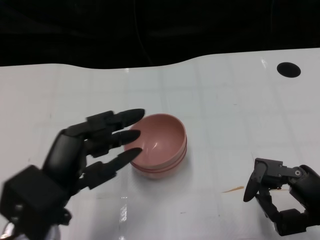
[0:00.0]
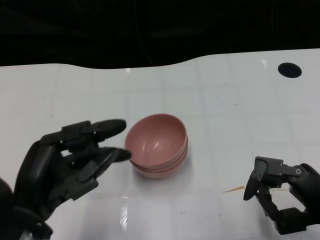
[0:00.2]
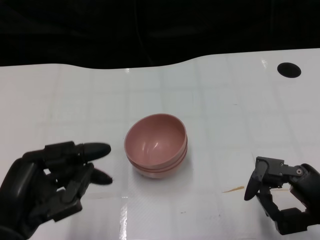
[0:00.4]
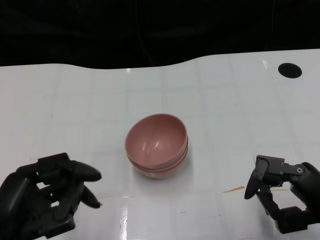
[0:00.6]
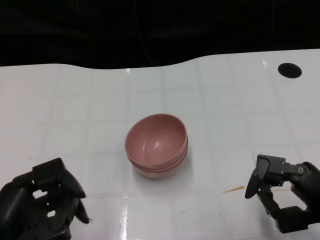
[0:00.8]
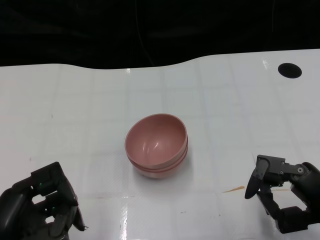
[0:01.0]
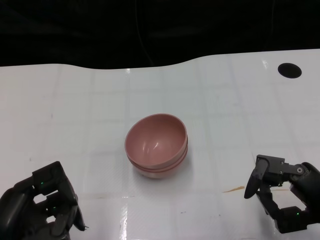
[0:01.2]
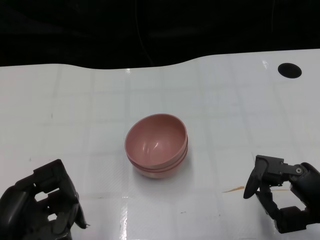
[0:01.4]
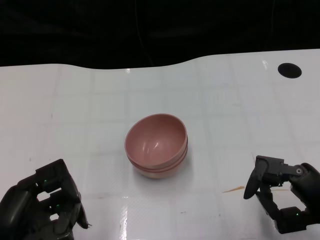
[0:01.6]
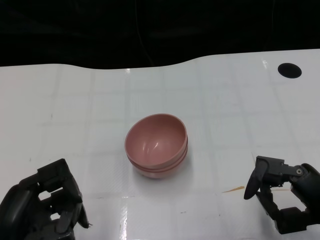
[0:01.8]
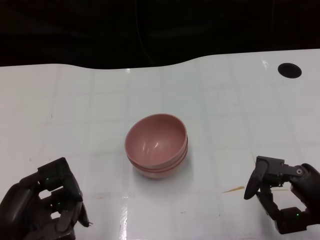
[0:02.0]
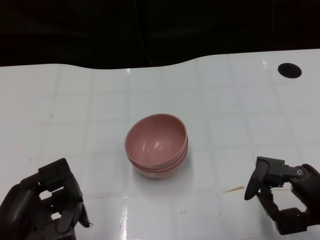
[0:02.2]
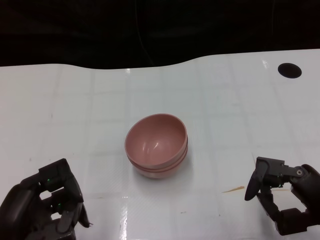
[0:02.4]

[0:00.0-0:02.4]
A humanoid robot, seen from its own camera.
Task of the whole recording: Pick up the bowl on one side of the table and place it on top of the middle bowl, then pick up the bowl on the other side of the table and place it on top of the middle bowls.
0:00.0 to 0:01.2: The left hand goes approximately 10 cm to the left and backward.
0:01.2 to 0:02.4: The two hands keep their place.

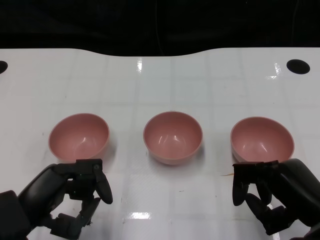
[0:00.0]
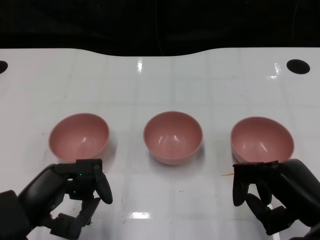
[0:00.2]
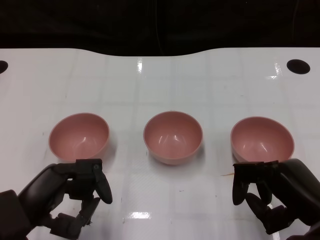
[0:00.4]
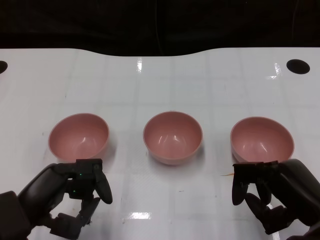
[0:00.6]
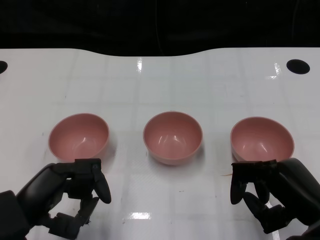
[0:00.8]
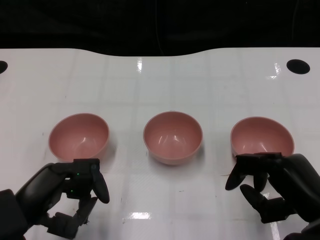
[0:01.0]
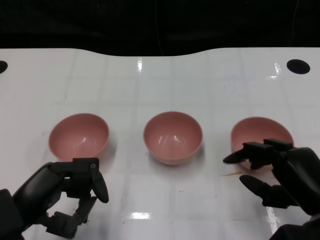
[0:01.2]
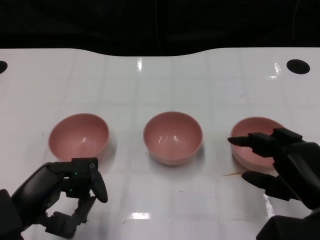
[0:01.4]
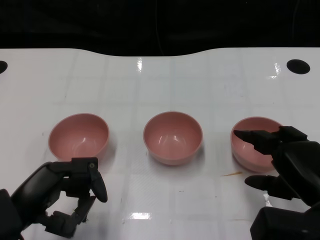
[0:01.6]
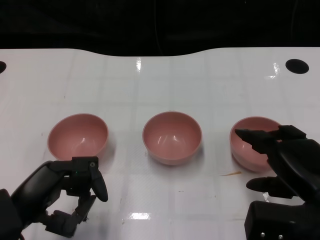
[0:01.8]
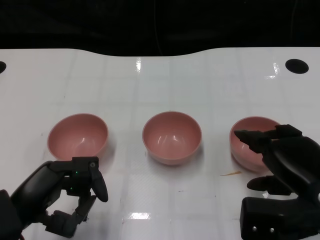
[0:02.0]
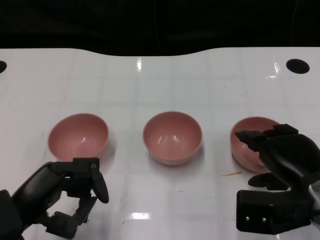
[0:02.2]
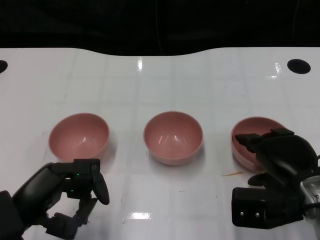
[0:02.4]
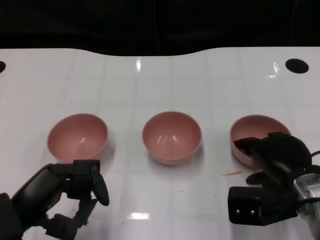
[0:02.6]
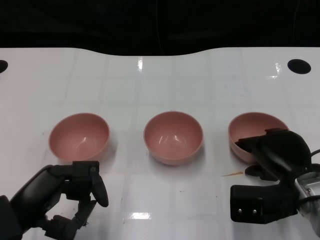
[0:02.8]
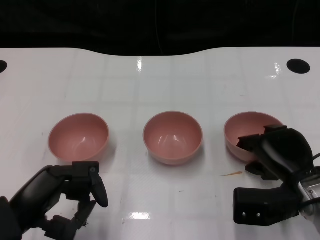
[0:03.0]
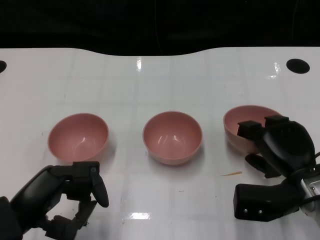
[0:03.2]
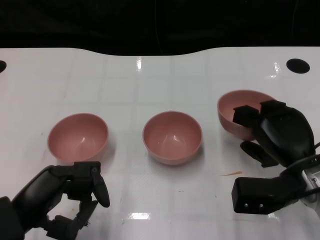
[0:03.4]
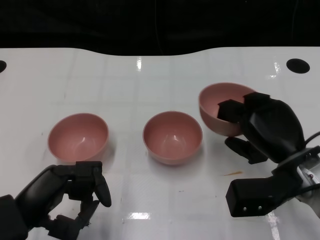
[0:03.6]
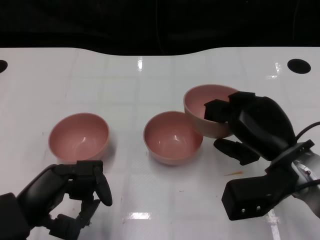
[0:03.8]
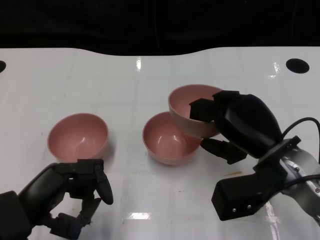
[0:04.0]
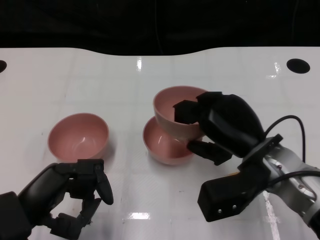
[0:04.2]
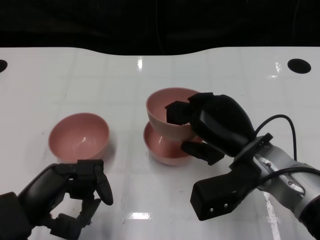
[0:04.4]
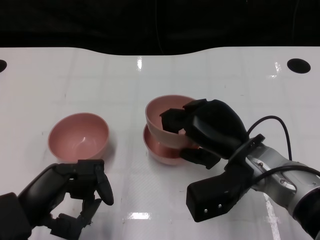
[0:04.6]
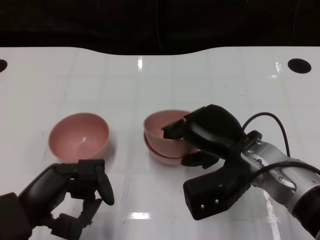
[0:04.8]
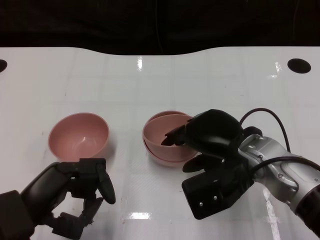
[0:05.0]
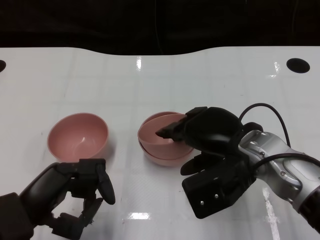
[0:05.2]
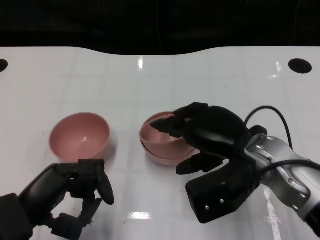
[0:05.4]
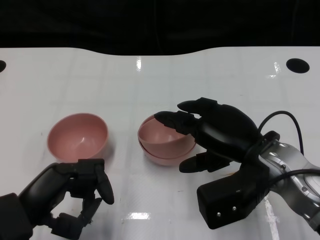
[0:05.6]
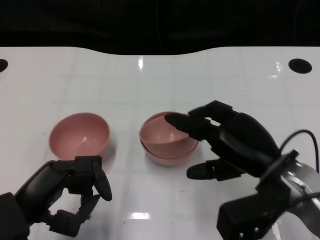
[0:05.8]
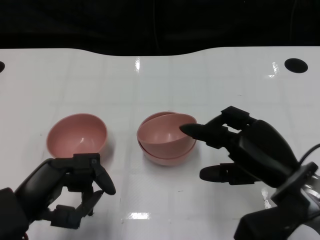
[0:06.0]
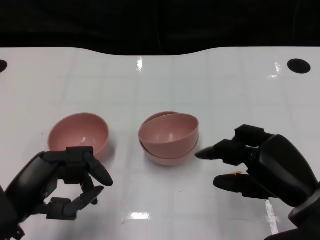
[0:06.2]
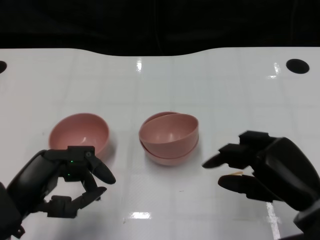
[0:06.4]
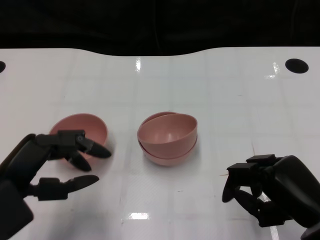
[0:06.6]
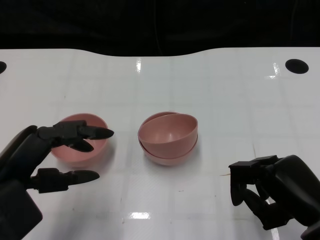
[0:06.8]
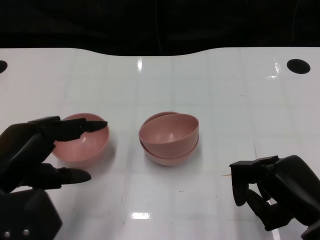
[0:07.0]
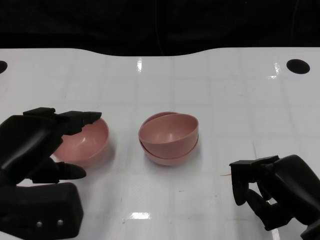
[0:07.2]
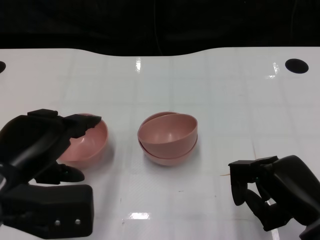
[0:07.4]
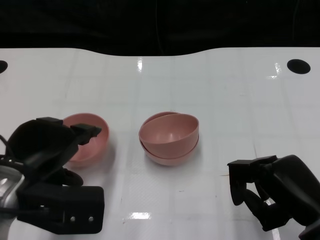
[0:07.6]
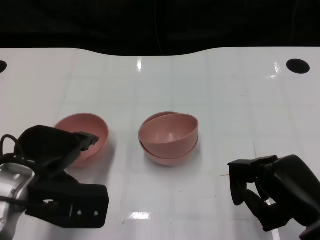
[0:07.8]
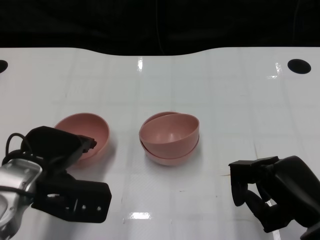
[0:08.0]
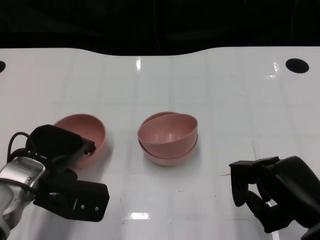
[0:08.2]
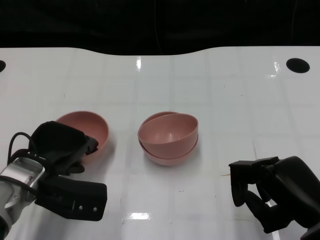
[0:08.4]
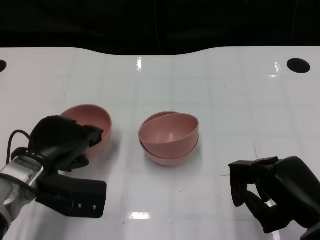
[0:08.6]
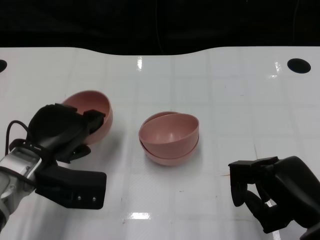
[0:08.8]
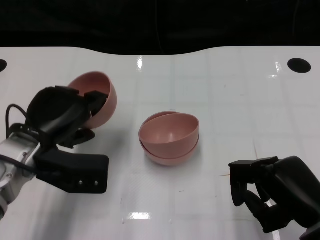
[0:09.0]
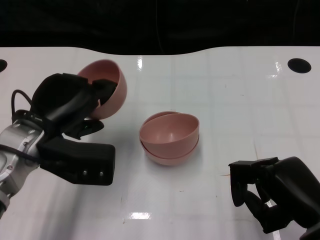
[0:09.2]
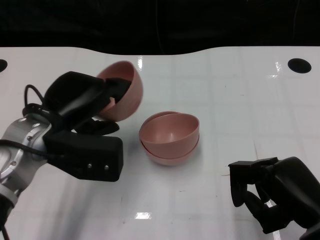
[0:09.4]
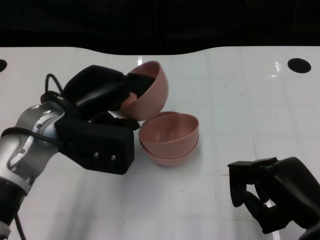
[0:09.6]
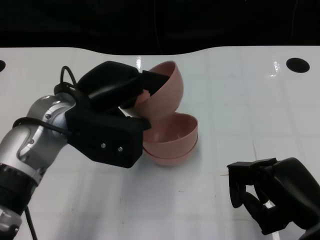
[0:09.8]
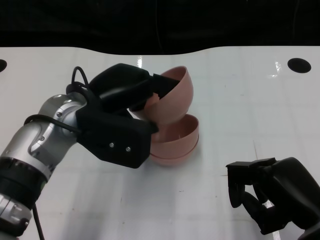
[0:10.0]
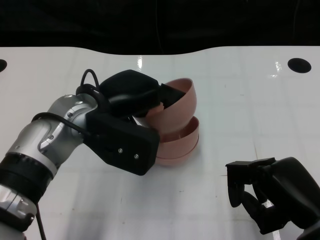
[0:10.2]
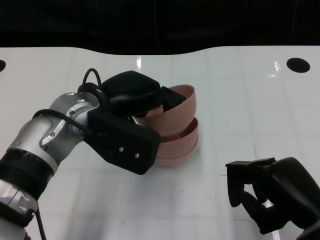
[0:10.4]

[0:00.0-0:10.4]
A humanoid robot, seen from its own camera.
Task of the whole recording: Pick up the bowl on one side of the table and place it on top of the middle bowl, then pick up the bowl on the other side of the table and place it on top of the middle bowls.
Step, 0:01.0 to 0:03.2: Grasp the bowl on the right with the right gripper.
Step, 0:03.4 to 0:06.0: Place the bowl on the right onto the bowl in the middle with right gripper.
Step, 0:06.2 to 0:08.4: Grasp the bowl on the left with the left gripper.
0:01.4 to 0:03.0: The right hand is displaced forward by some 5 cm.
0:03.0 to 0:04.4: The right hand travels to the left and upward by approximately 10 cm.
0:04.4 to 0:06.0: The right hand goes approximately 5 cm to the right.
0:06.0 to 0:07.4: The left hand goes about 5 cm upward. Meanwhile the right hand ends up roughly 5 cm from where it was.
0:07.4 to 0:09.0: The left hand is displaced forward by about 10 cm.
0:09.0 to 0:10.4: The left hand goes about 10 cm to the right and upward.

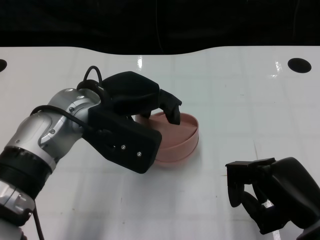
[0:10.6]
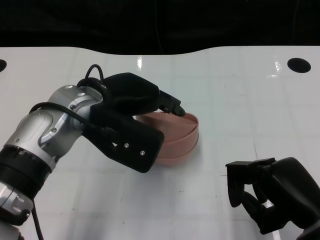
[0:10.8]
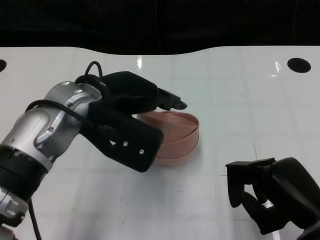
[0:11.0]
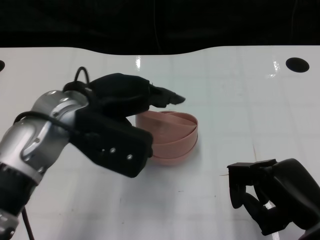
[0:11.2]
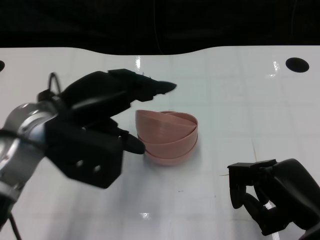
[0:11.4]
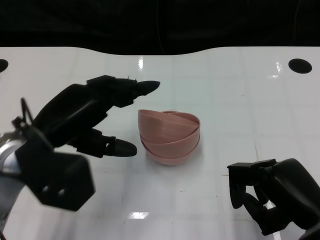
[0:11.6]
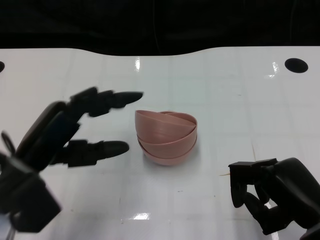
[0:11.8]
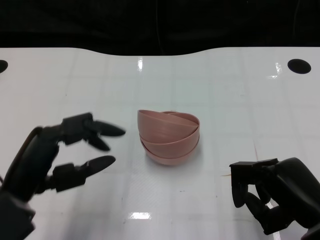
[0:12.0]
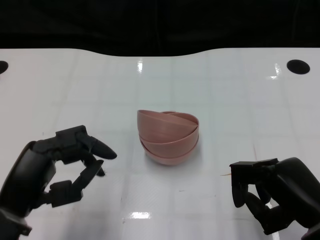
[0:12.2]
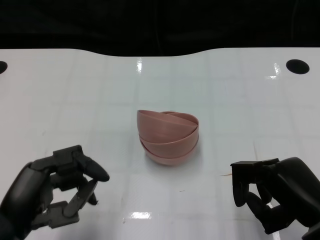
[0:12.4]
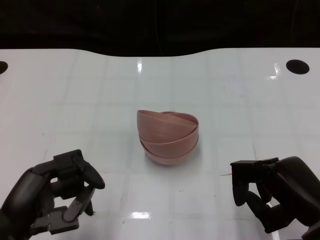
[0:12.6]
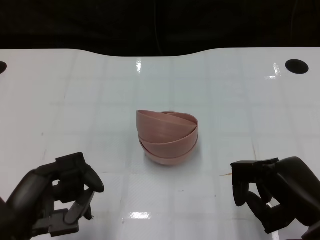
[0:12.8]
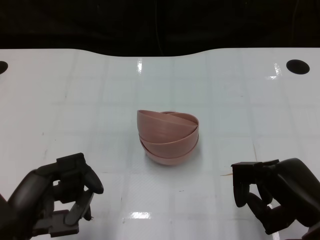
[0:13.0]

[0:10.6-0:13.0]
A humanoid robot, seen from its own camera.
Task of the whole recording: Pick up the bowl on one side of the table and place it on top of the middle bowl, then pick up the bowl on the other side of the table and place it on top of the middle bowls.
0:10.6 to 0:11.8: The left hand moves to the left and backward, about 10 cm.
0:11.8 to 0:13.0: The left hand is displaced backward by some 10 cm.

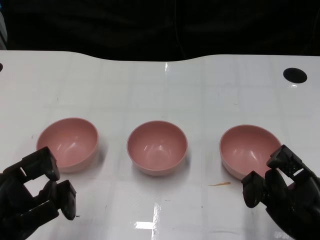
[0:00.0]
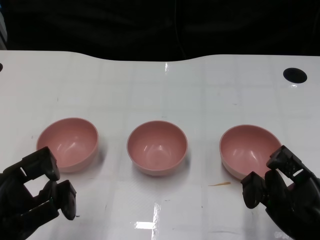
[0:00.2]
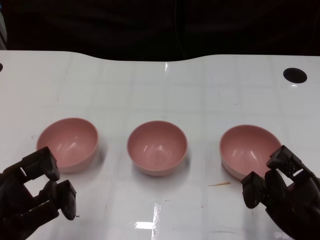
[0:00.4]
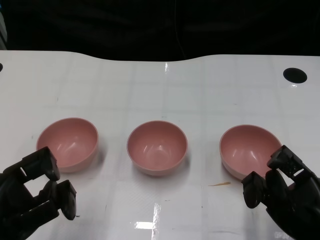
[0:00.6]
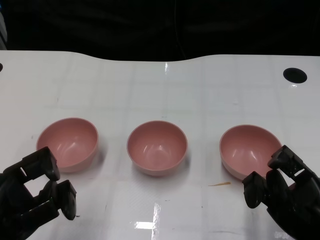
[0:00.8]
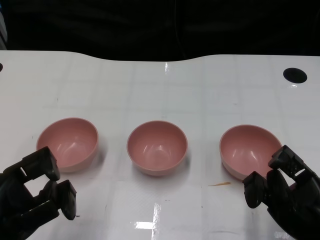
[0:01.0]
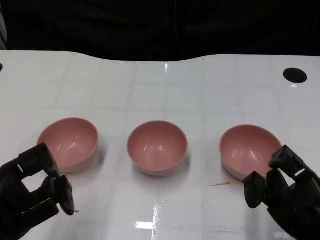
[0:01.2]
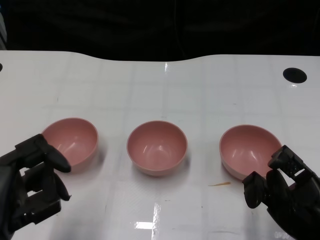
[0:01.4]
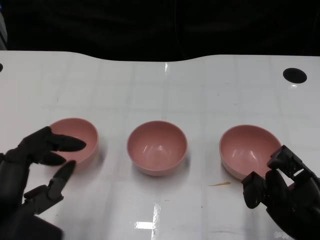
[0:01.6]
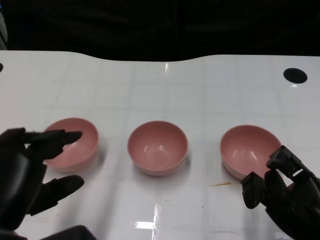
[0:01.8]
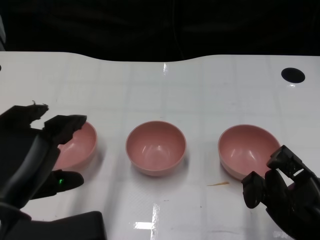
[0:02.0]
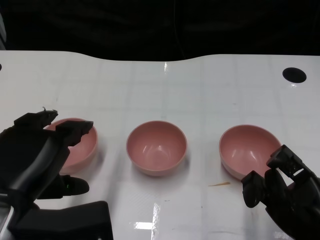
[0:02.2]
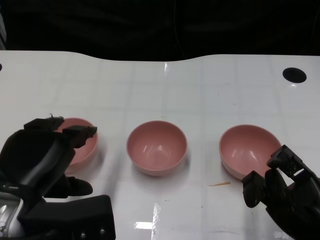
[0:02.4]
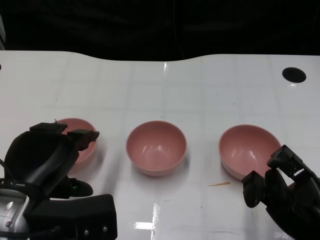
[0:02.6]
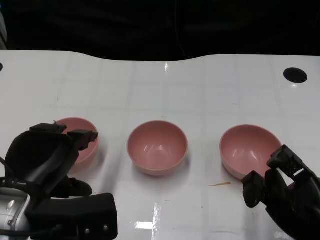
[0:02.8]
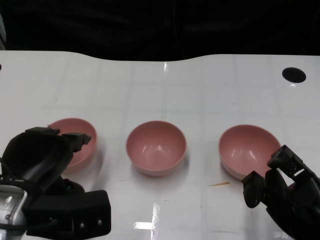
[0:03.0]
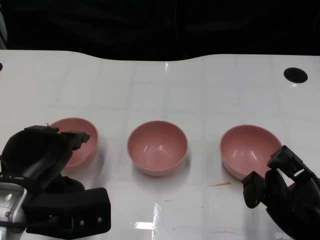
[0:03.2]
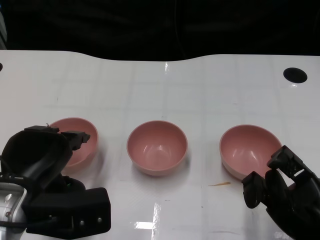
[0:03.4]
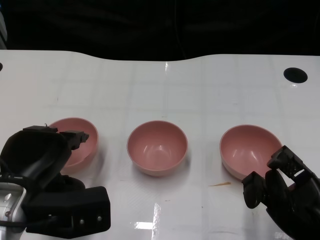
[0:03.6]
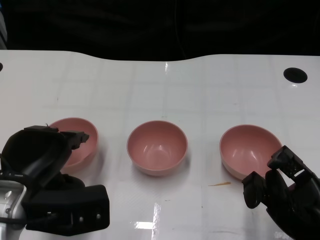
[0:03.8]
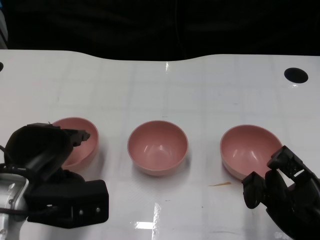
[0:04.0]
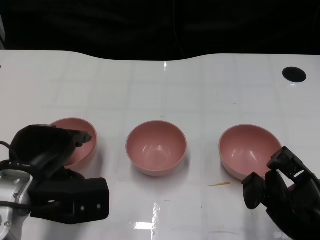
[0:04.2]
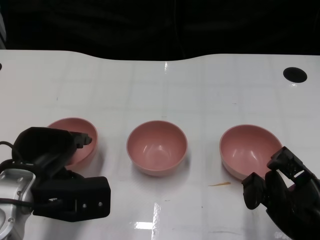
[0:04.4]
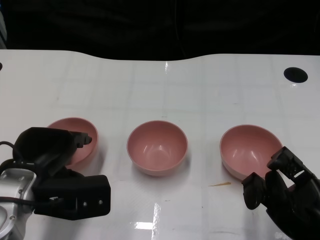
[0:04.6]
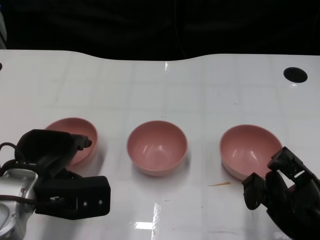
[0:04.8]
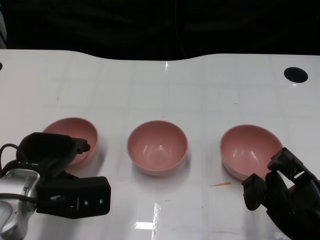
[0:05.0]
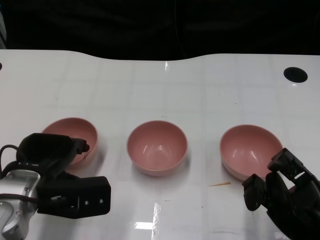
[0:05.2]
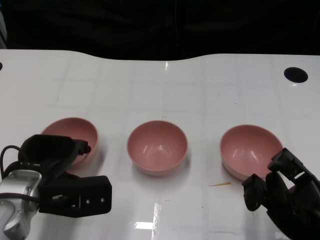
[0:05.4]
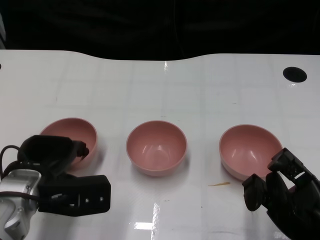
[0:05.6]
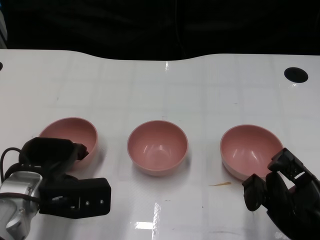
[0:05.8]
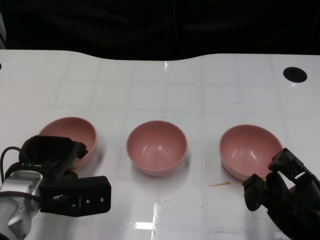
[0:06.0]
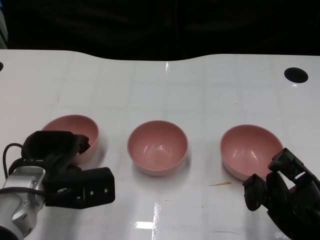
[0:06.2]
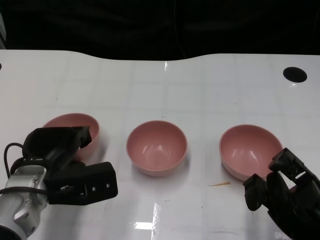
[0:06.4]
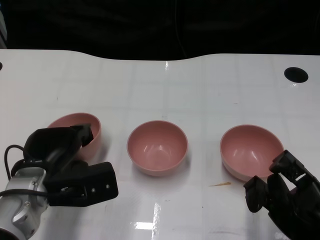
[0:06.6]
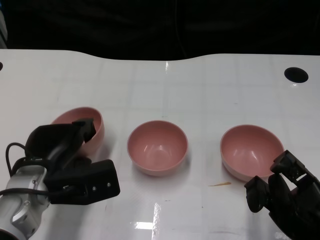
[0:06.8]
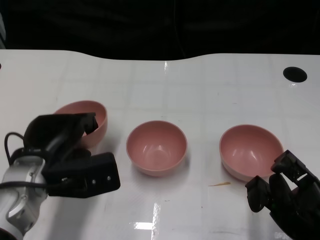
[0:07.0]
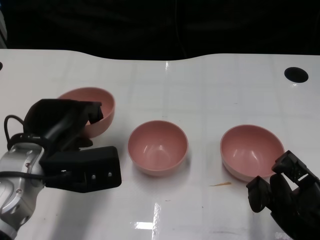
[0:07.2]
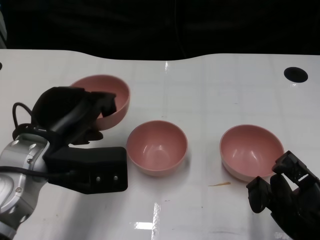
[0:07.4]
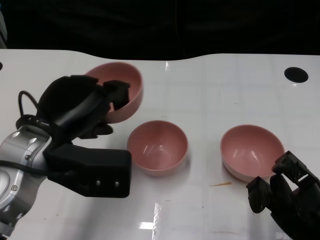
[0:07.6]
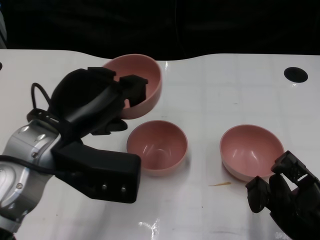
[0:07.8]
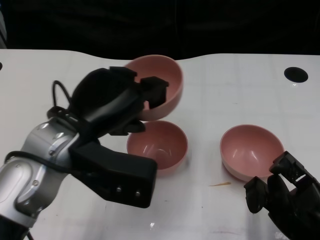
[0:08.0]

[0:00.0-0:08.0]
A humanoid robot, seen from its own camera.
Task of the whole recording: Pick up the bowl on one side of the table and place it on top of the middle bowl, then pick up the bowl on the other side of the table and place it on top of the middle bowls.
Step, 0:01.2 to 0:06.8: Grasp the bowl on the left with the left gripper.
0:01.6 to 0:03.2: The left hand is displaced forward by some 5 cm.
0:03.2 to 0:04.8: The left hand ends up approximately 5 cm from where it was.
0:04.8 to 0:06.4: There are only small adjustments of the hands.
0:06.4 to 0:08.0: The left hand heads upward and to the right, covering some 15 cm.
